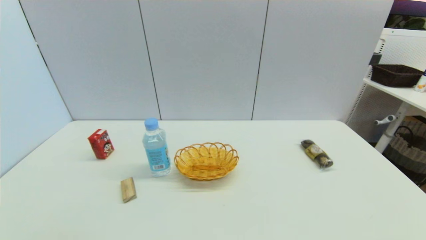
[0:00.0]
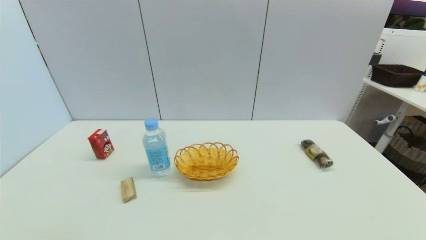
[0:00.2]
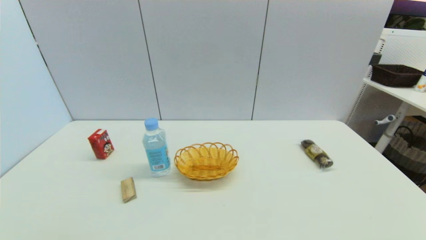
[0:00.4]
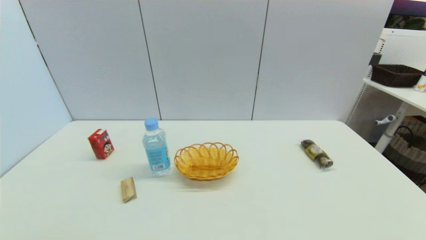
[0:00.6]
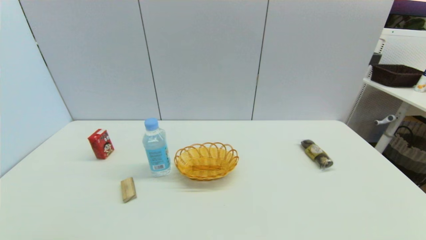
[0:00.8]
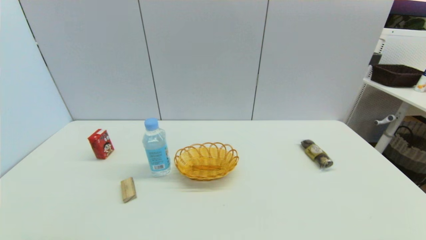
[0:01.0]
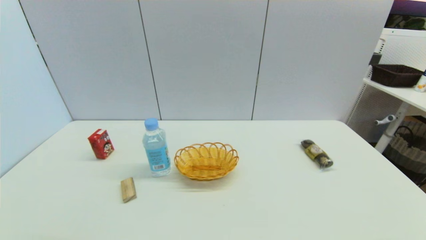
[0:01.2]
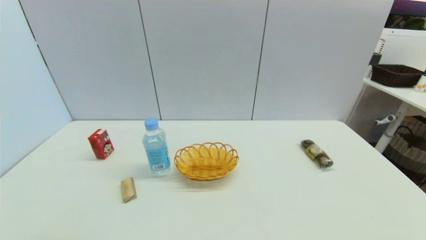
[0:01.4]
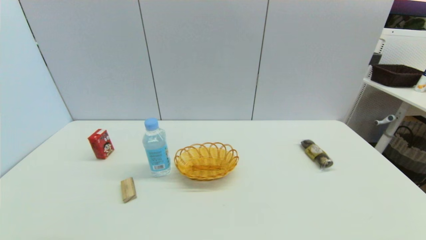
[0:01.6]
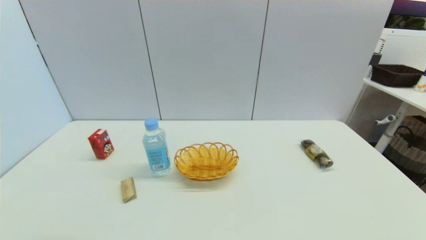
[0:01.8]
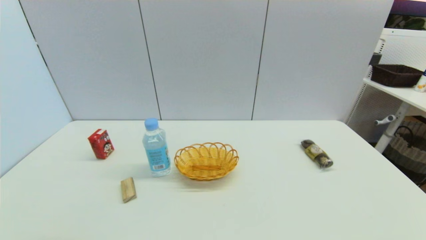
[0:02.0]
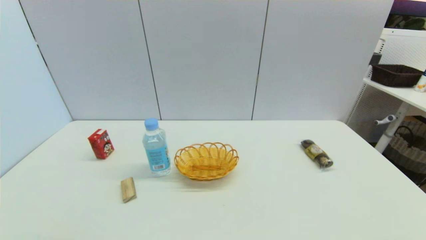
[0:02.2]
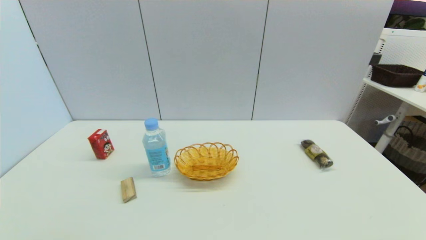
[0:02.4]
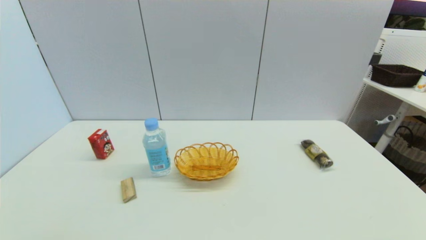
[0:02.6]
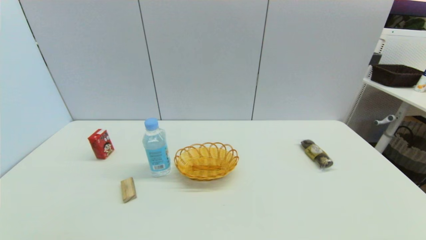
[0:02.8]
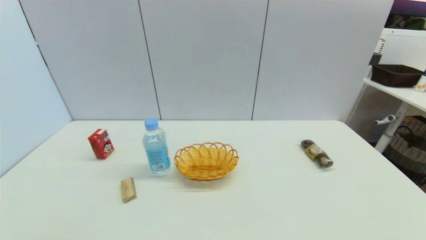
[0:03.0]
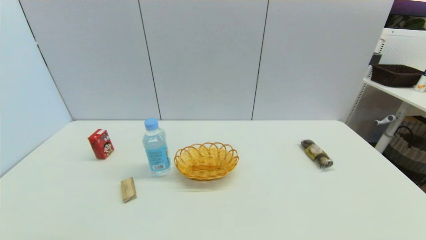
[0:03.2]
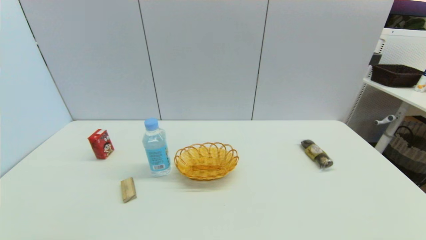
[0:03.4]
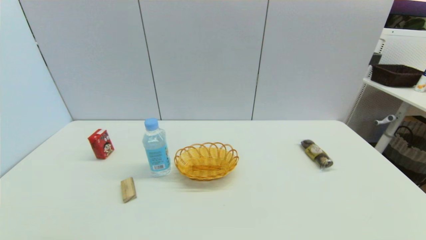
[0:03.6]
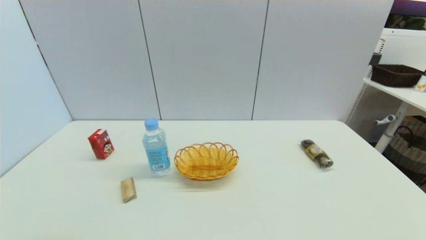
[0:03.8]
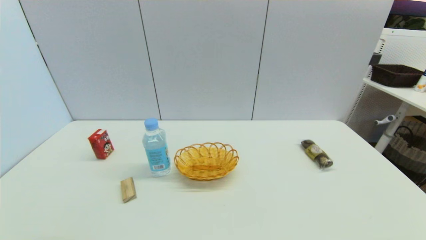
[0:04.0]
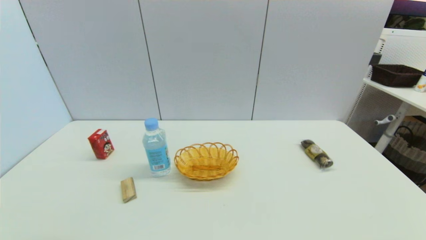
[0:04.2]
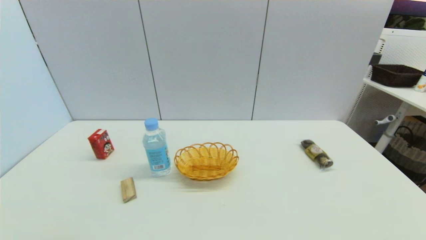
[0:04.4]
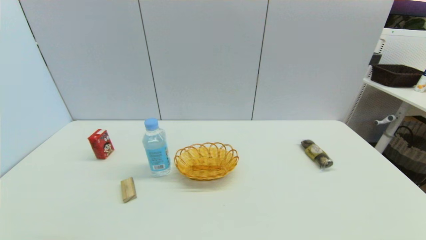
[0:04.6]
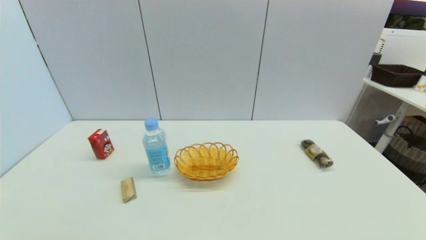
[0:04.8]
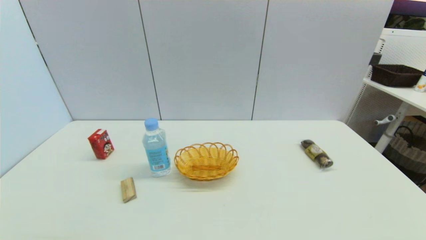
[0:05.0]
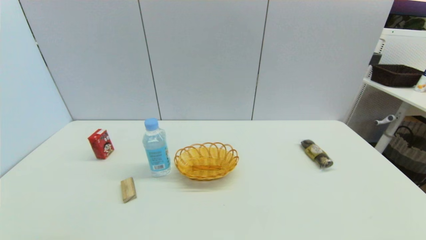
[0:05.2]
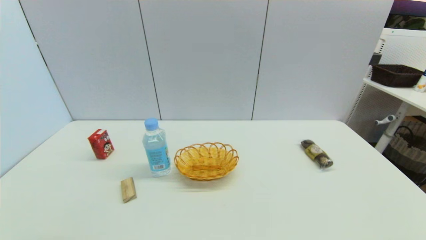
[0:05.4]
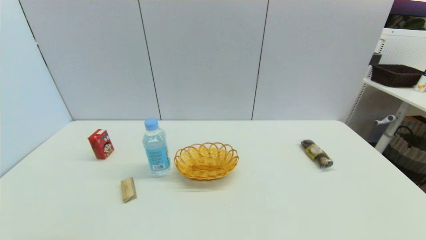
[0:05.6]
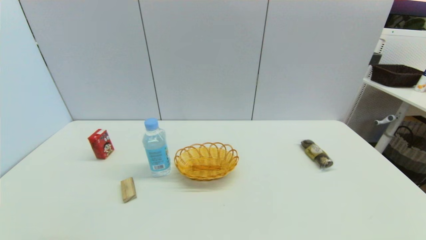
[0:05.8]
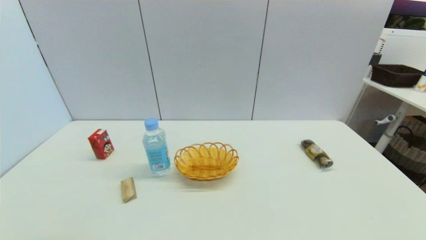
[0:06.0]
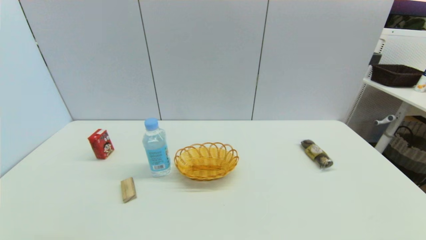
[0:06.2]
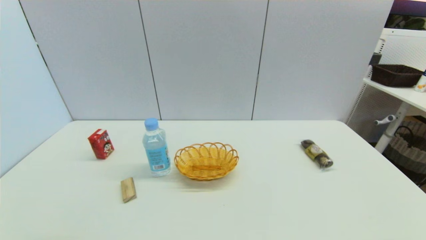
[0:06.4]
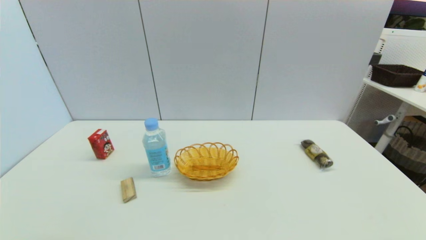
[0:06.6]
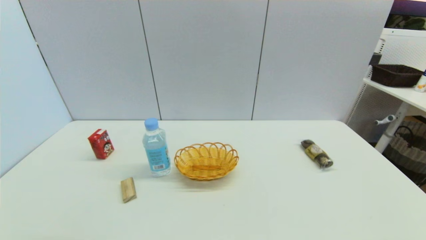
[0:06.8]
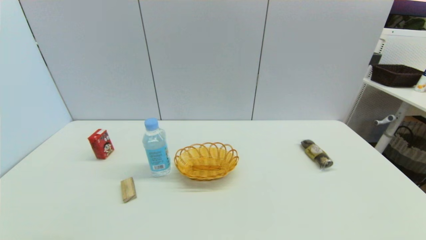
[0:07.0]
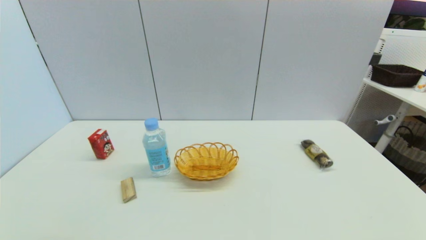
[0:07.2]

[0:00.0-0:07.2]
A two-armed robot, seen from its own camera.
4.4 to 7.2 s: Both grippers stay about where they are.

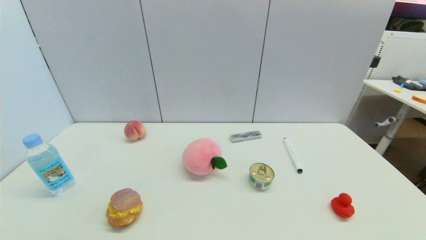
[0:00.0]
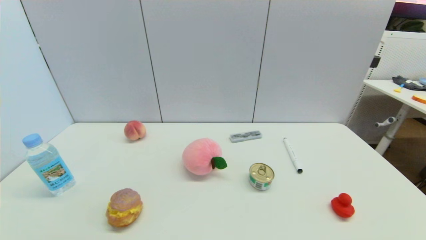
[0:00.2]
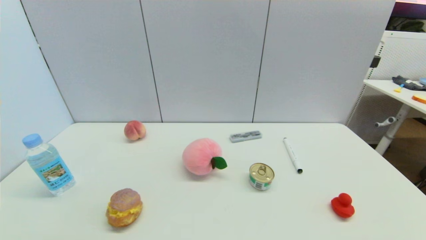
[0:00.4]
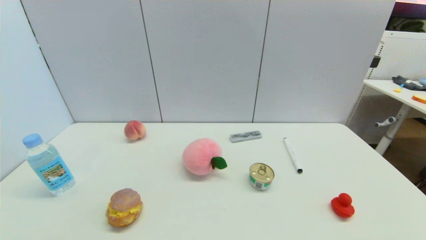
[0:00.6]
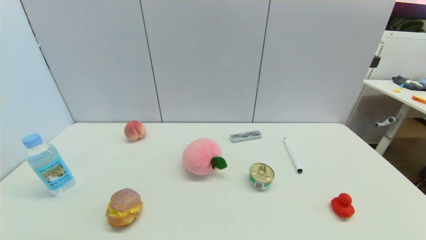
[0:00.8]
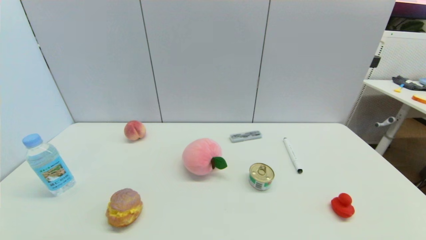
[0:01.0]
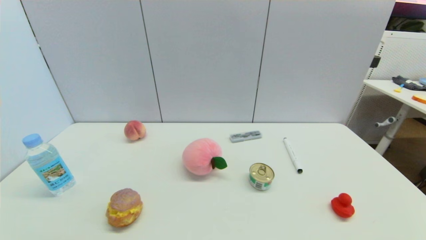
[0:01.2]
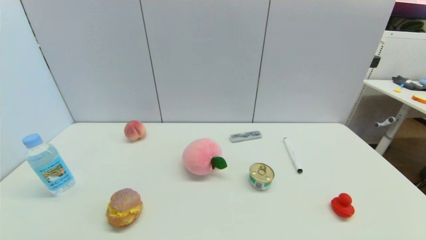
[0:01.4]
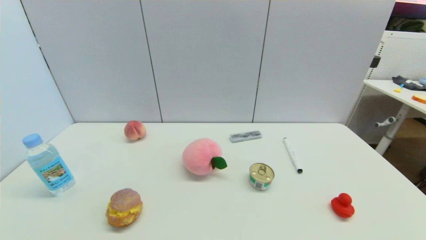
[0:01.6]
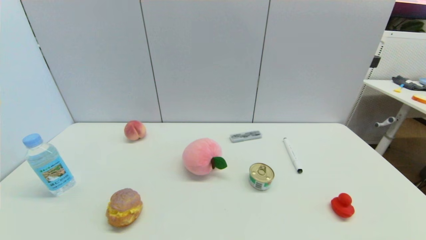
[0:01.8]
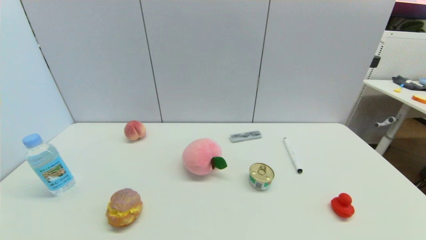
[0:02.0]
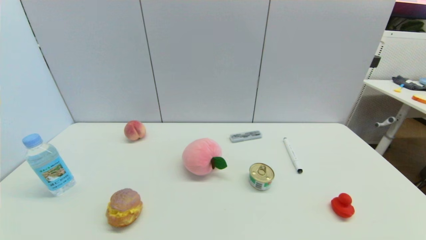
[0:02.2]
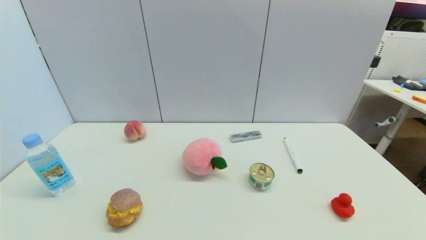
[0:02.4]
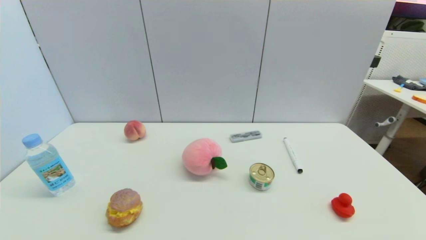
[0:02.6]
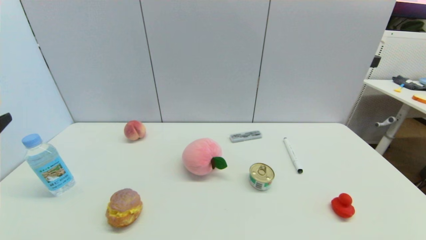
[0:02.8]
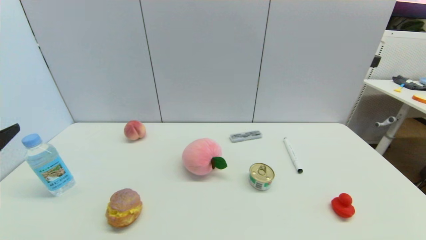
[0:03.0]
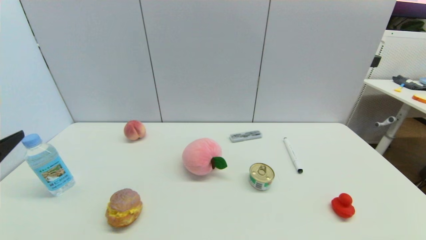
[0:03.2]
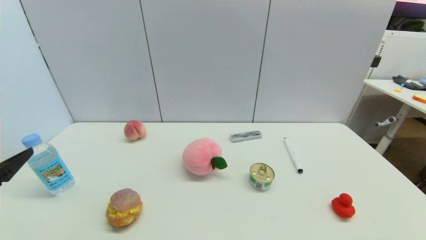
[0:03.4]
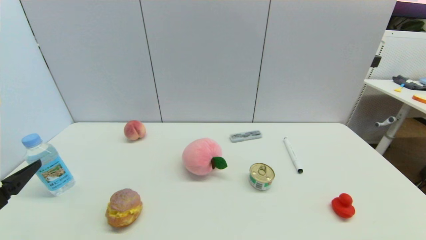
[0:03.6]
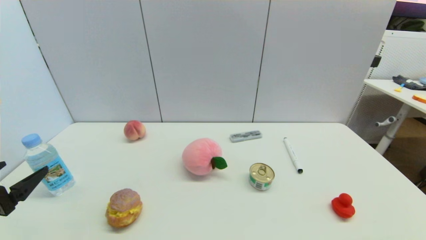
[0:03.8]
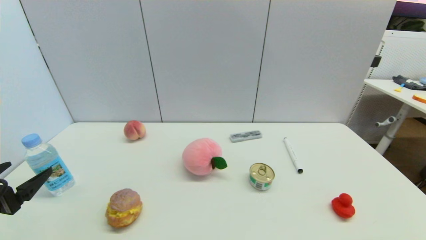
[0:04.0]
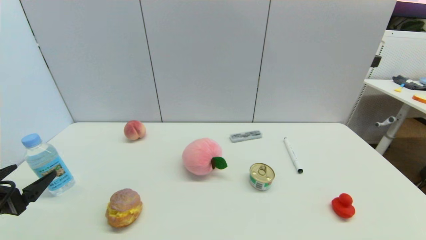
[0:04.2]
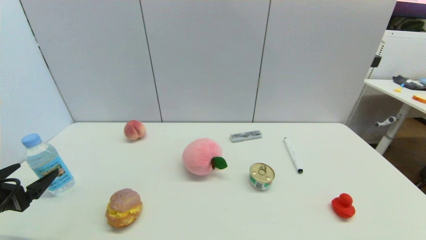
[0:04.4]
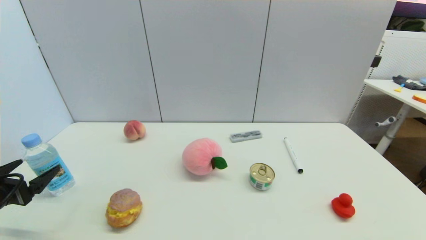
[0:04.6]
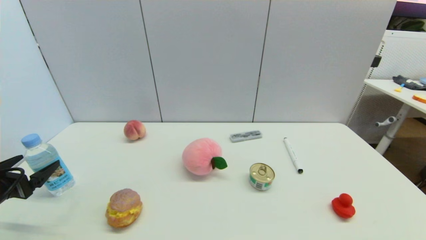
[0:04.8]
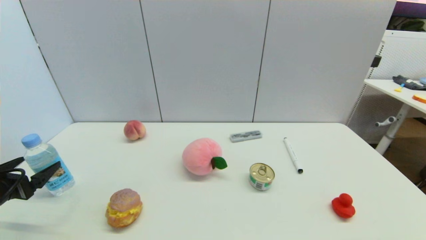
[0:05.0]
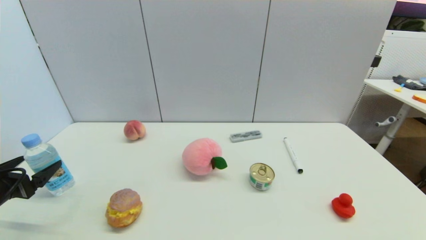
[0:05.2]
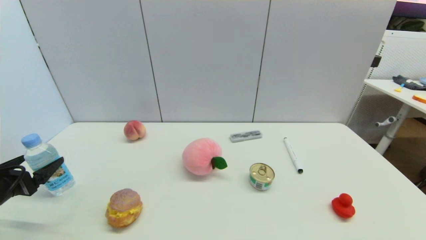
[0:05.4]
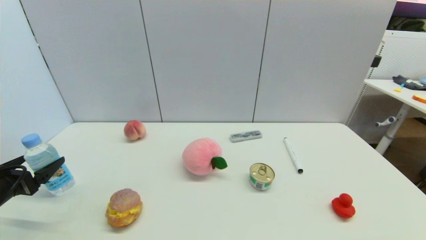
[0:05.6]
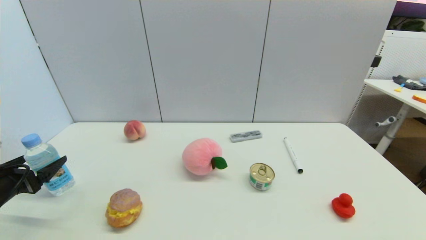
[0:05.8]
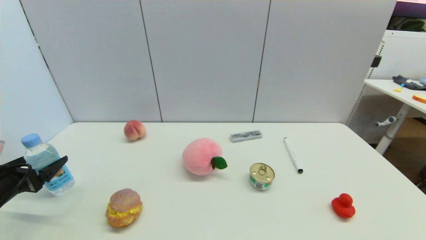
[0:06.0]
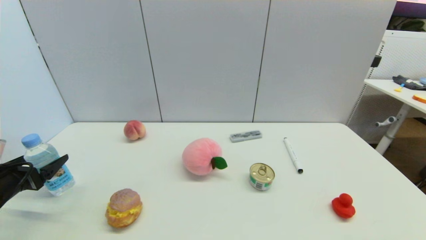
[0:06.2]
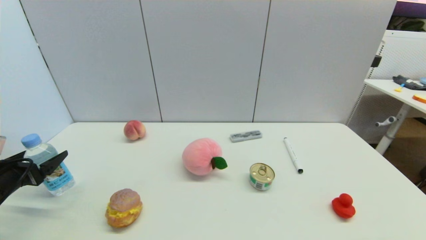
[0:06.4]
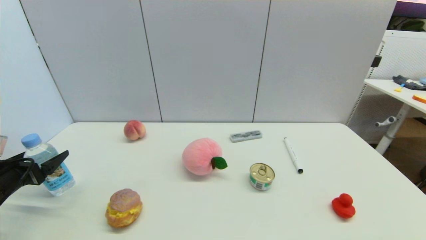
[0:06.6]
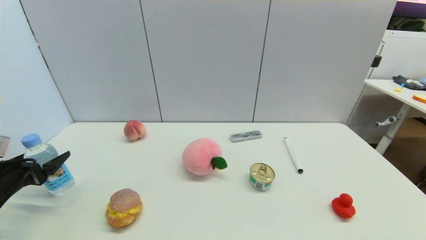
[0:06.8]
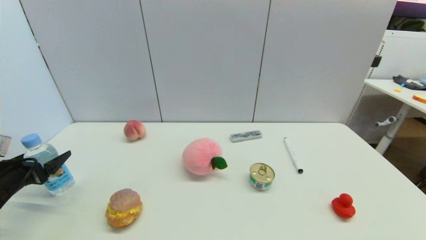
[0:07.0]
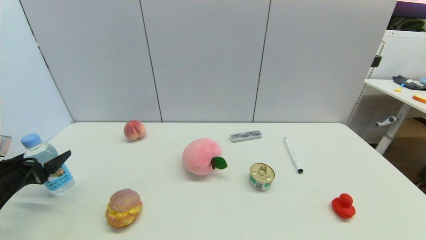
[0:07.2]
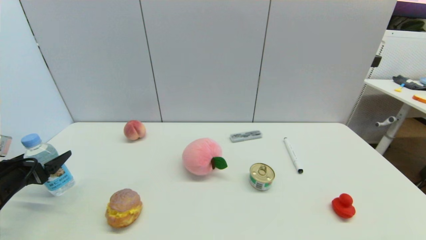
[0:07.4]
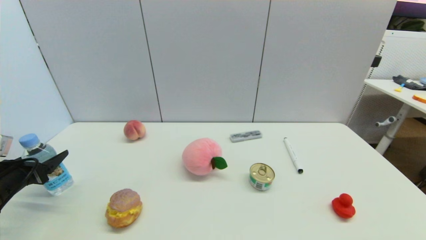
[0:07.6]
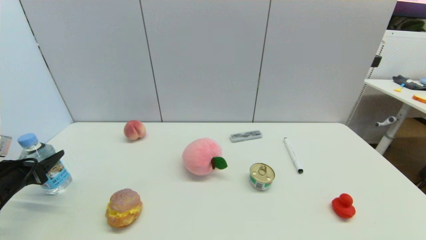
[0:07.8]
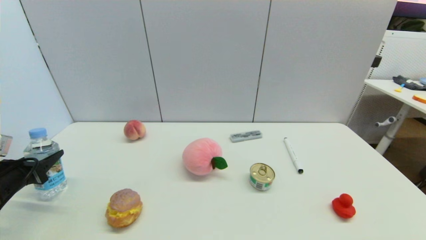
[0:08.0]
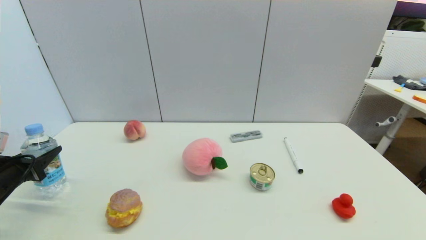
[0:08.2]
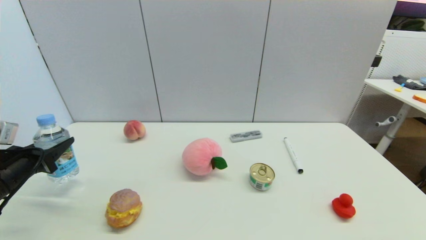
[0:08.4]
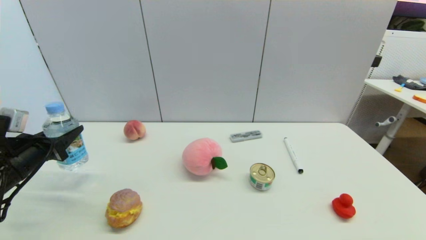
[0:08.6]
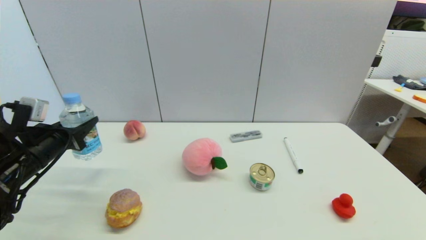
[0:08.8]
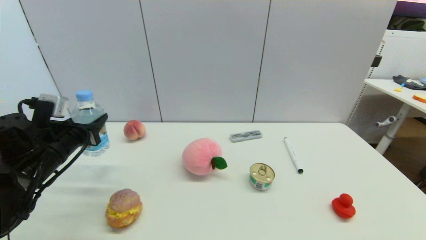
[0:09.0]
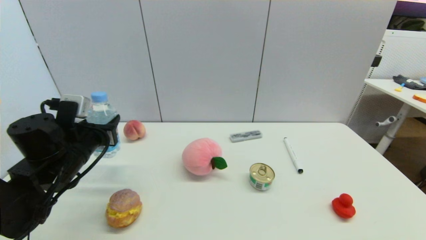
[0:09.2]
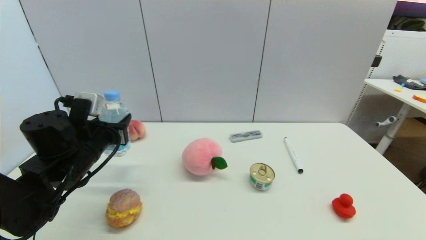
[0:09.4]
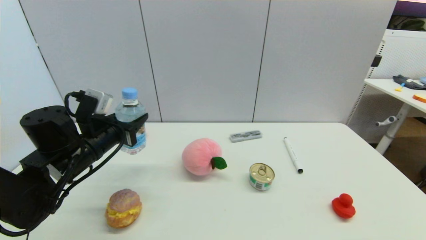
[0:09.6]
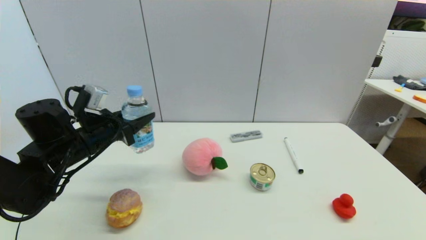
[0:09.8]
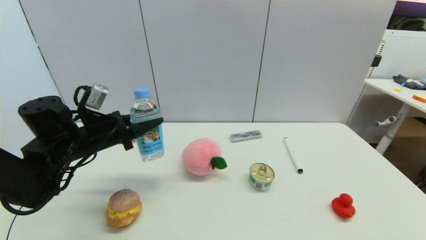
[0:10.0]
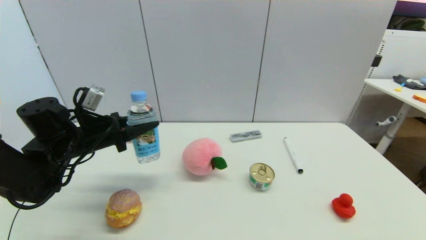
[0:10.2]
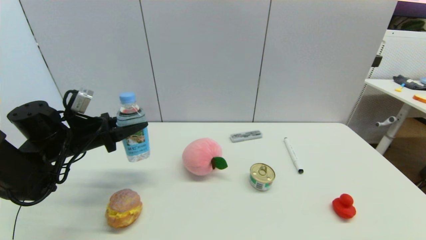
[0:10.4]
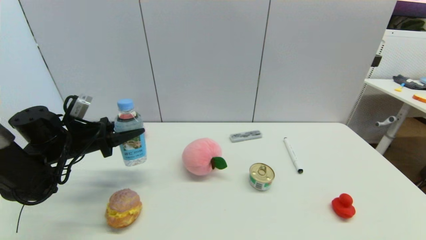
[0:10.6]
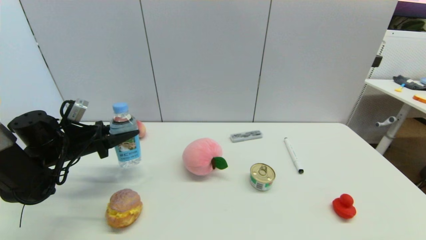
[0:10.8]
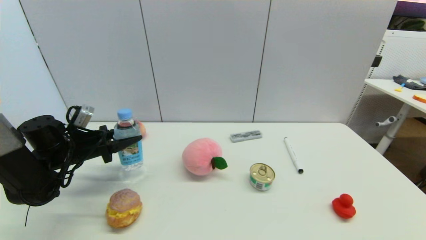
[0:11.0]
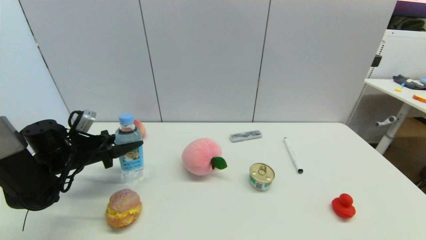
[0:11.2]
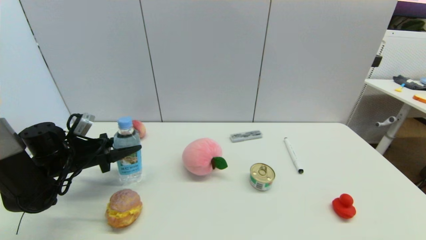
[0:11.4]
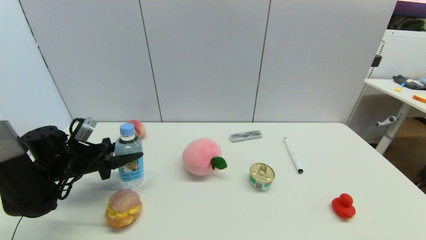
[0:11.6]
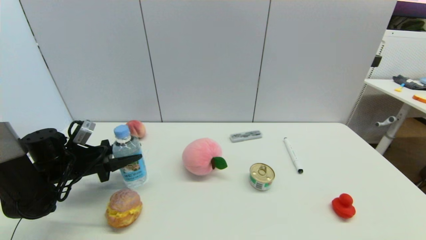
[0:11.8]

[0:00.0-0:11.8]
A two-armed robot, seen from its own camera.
Step, 2.4 to 8.0 s: Grasp the soda water with left gripper.
0.0 to 1.4 s: Neither gripper changes place.
3.0 to 4.4 s: The left gripper goes some 10 cm downward.
4.4 to 6.0 s: The left gripper moves some 5 cm.
6.0 to 7.4 s: The grippers make only small movements.
7.4 to 8.8 s: The left gripper goes about 10 cm to the right and upward, and closes.
8.8 to 10.4 s: The left gripper travels forward and to the right by some 5 cm.
10.4 to 11.8 s: The left gripper goes roughly 5 cm downward.
